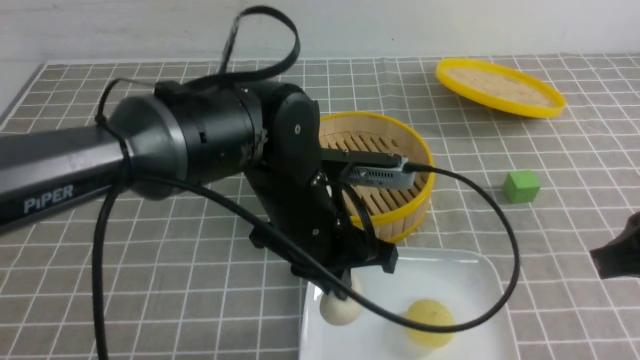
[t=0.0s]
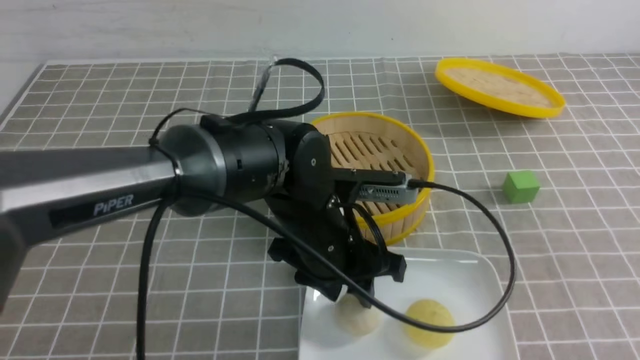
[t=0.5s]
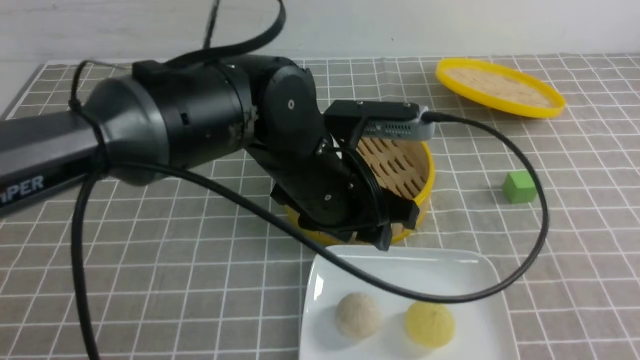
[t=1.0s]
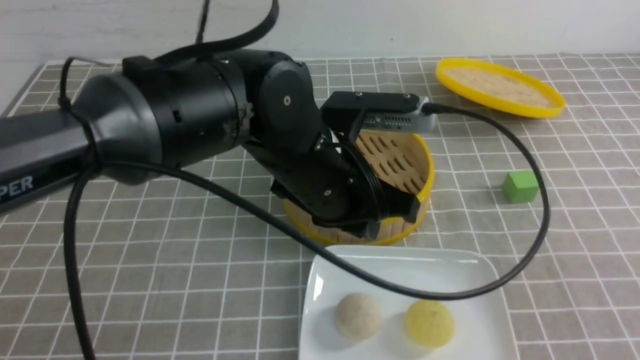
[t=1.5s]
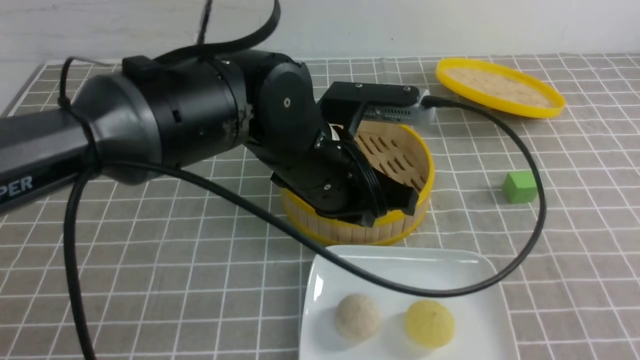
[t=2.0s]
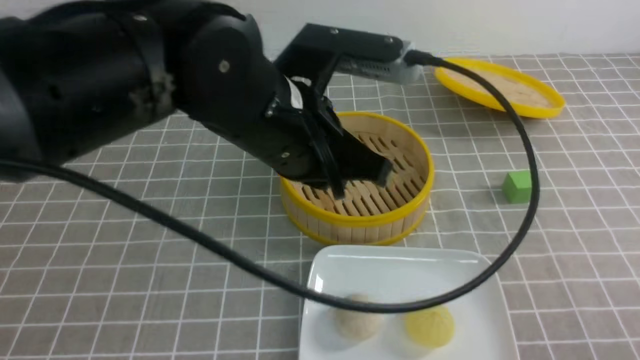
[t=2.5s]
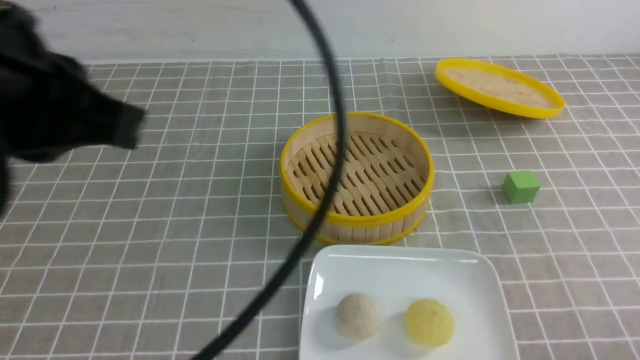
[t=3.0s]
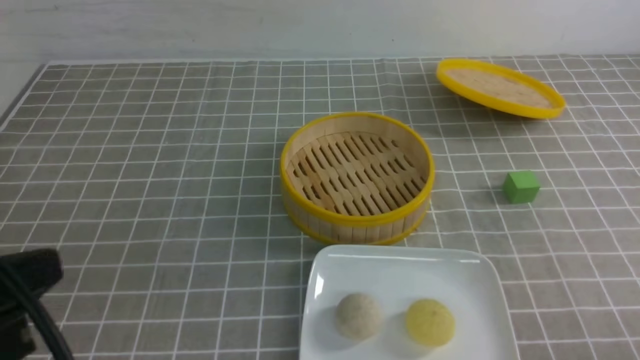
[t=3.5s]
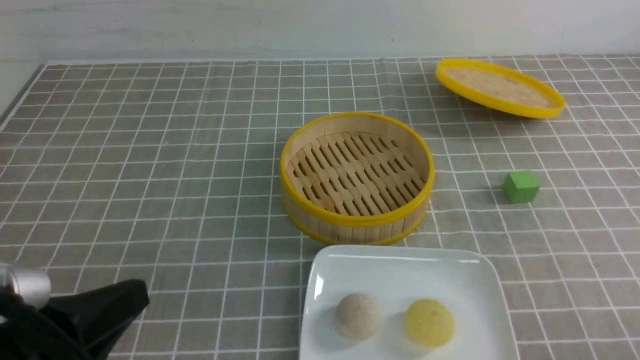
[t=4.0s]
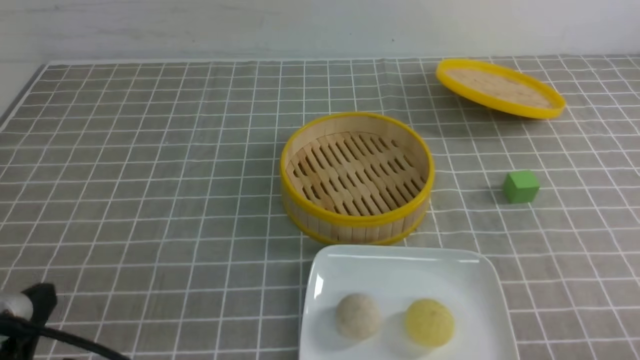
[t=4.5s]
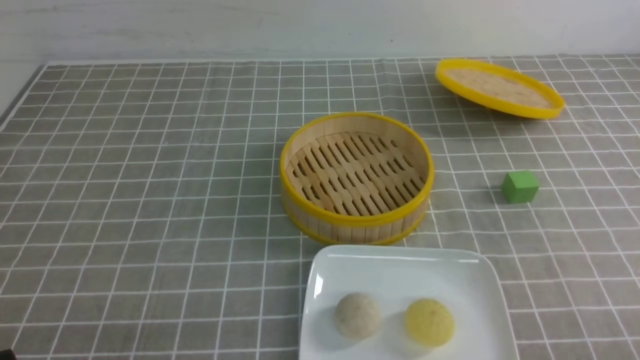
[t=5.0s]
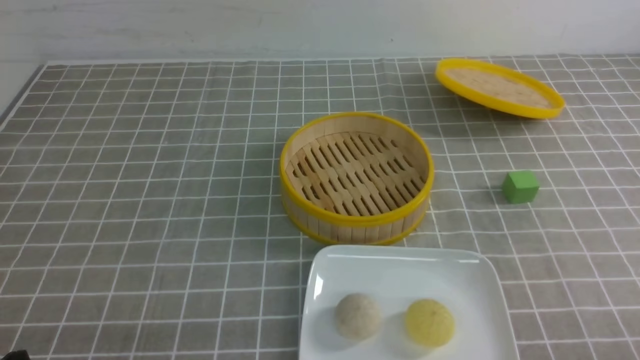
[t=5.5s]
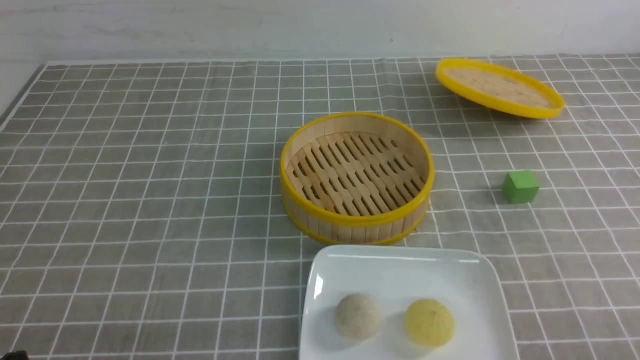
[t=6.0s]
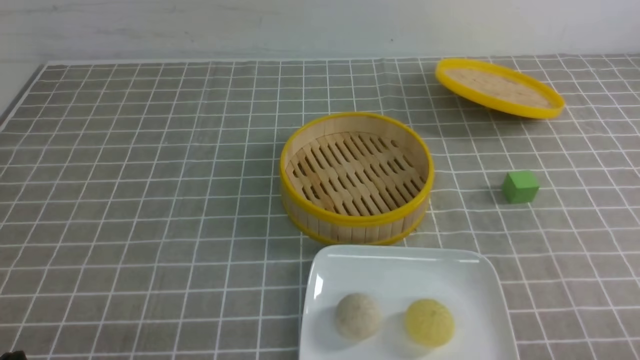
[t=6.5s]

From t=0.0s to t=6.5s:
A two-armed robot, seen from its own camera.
From t=0.0s to t=2.0s: The right gripper goes approximately 15 cm backward, to the right and downward. Meanwhile the left gripper opens, then closes once more.
From t=2.0s to t=4.5s: The right gripper goes roughly 10 cm downward. The left gripper moves to the left and backward, approximately 30 cm.
From t=4.5s to t=6.5s: The left gripper moves downward, roughly 5 cm.
